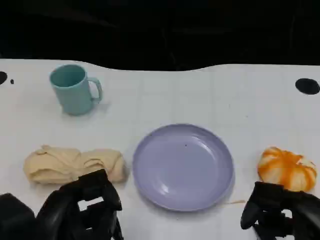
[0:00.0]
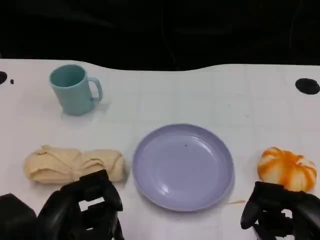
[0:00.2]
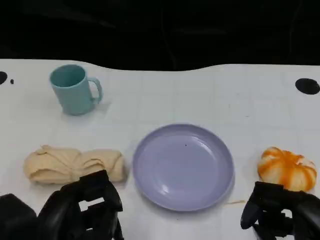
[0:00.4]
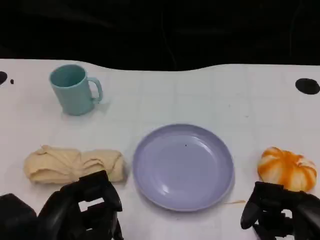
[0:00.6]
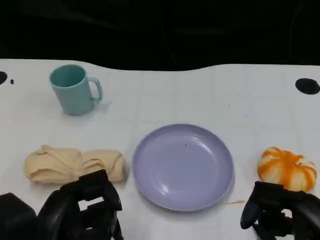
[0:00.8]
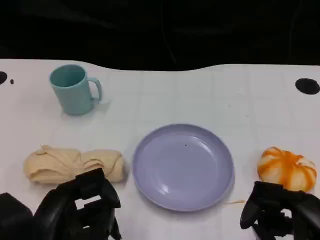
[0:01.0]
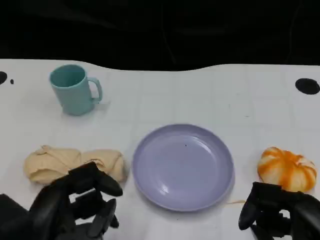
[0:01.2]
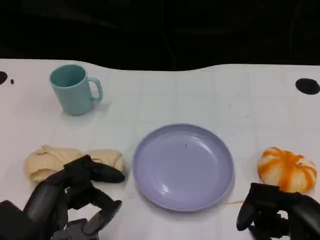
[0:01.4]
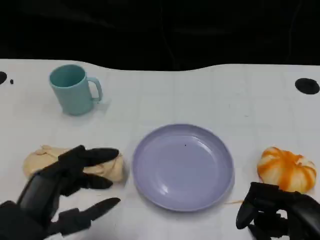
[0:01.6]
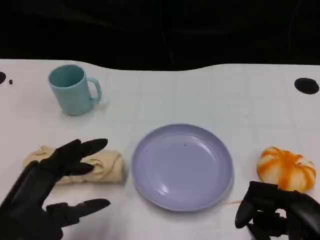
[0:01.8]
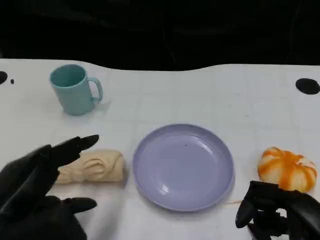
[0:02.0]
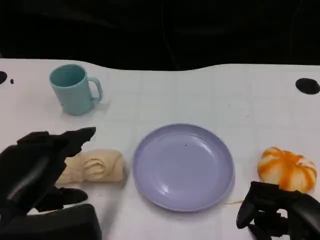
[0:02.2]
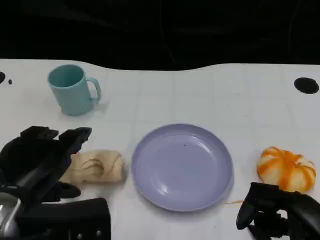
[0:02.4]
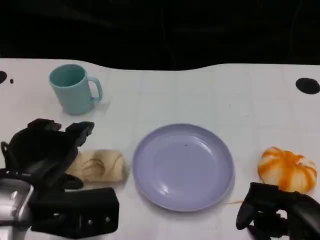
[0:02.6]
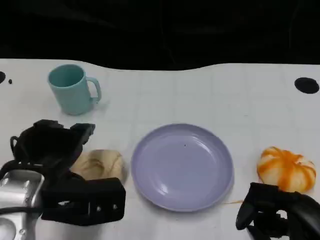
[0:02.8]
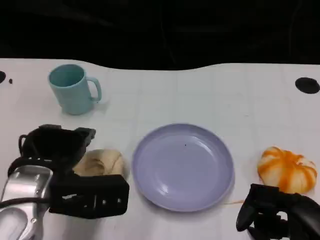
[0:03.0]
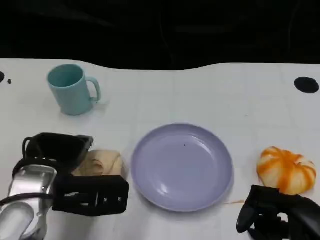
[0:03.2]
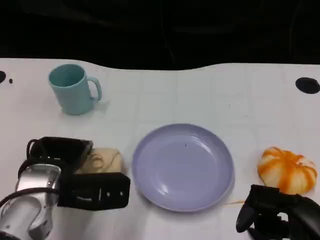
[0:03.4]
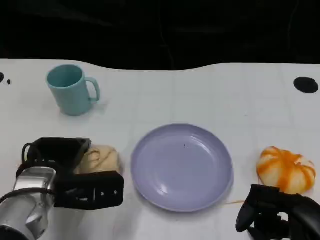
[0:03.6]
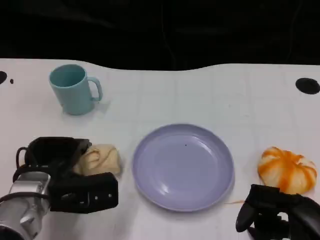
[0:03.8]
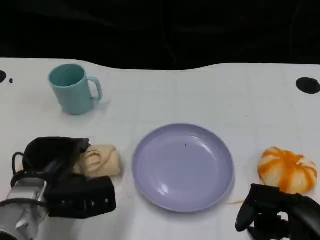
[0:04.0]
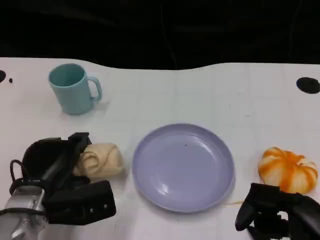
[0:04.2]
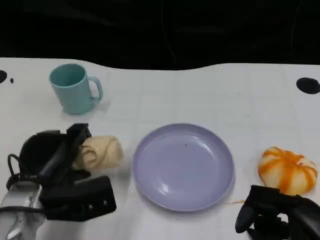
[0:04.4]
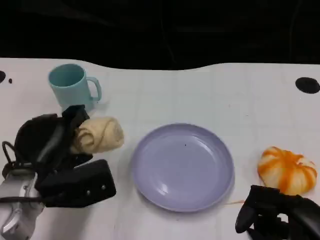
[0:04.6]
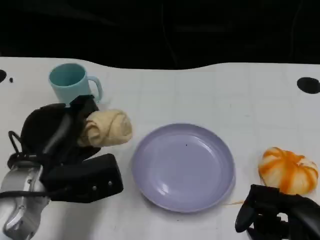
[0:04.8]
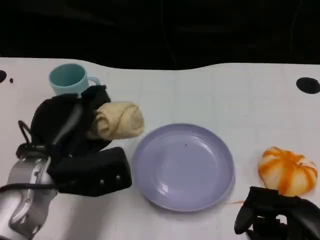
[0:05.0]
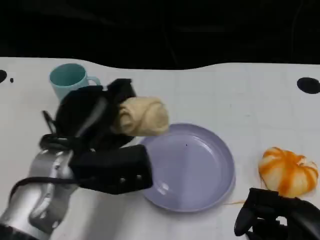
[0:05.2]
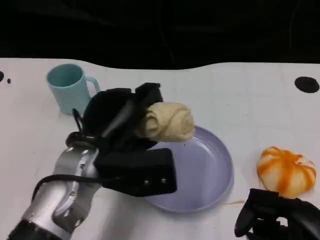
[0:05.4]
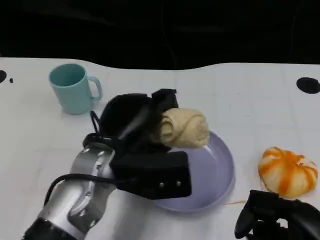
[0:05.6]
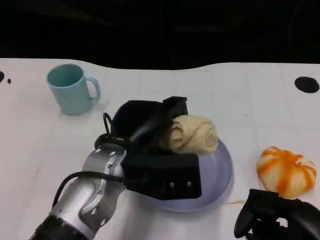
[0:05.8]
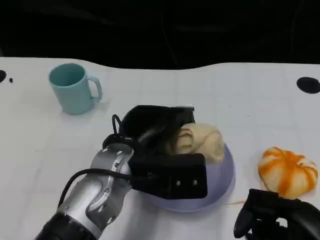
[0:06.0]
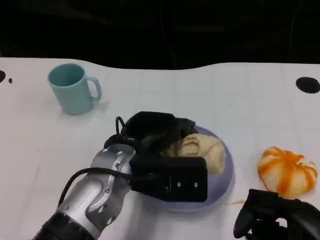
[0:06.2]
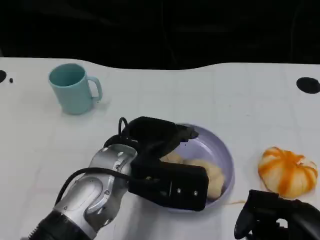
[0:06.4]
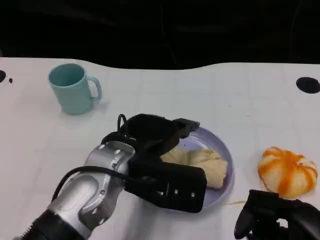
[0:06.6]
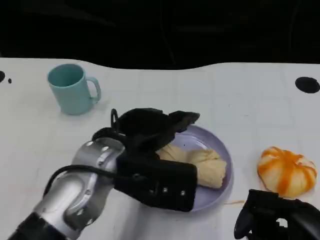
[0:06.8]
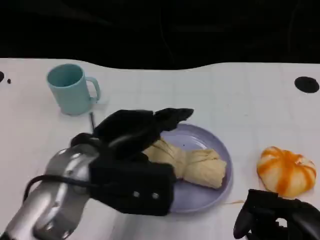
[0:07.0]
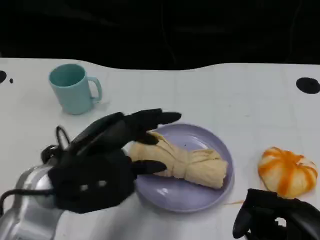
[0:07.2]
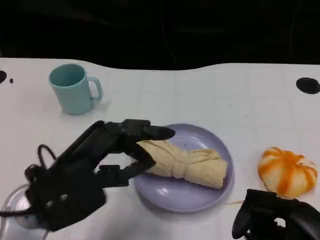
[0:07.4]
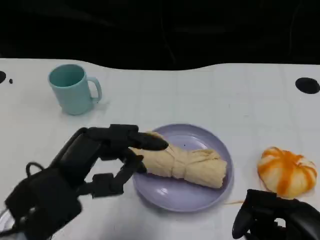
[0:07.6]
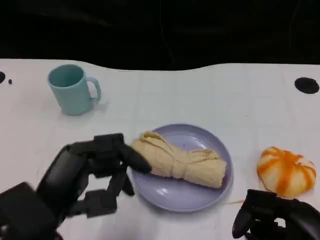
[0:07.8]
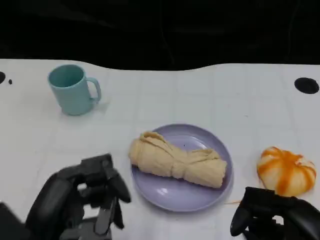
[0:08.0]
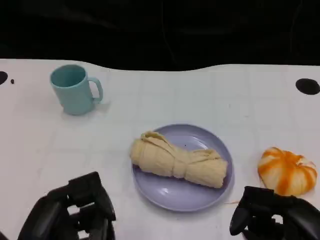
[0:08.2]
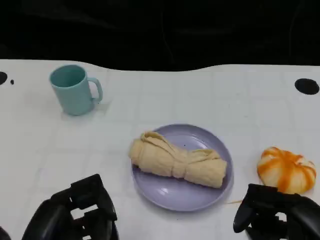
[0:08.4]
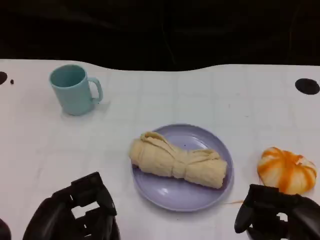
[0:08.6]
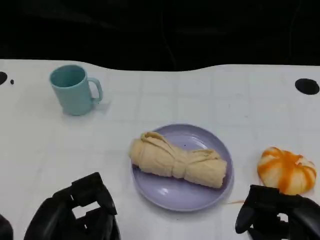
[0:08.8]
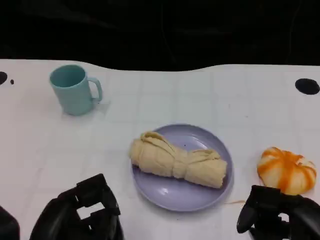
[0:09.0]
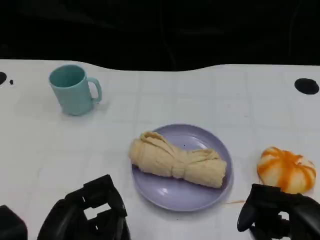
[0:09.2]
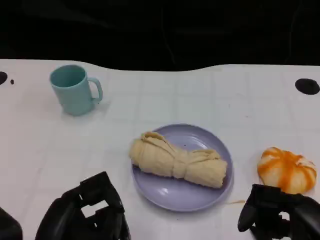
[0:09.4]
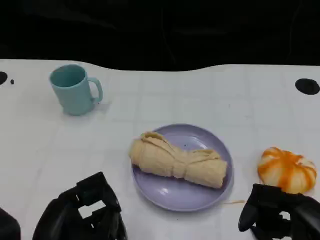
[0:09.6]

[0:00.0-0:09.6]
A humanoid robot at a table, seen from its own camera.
Task of the whole recording: Grasp the towel on the left side of the plate with the left hand and place it into the plate.
0:01.6 to 0:03.2: The left hand moves forward, approximately 10 cm.
0:04.8 to 0:06.4: The left hand goes approximately 10 cm to the right.
0:06.4 to 0:08.0: The left hand moves backward and to the left, about 20 cm.
0:08.0 to 0:09.6: There are only small adjustments of the hands.

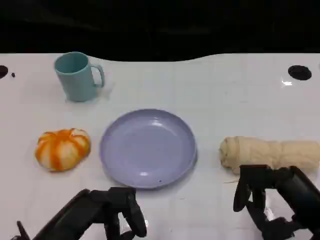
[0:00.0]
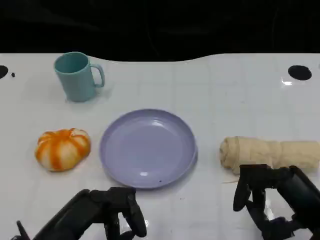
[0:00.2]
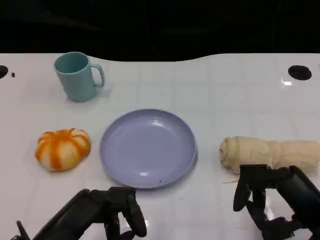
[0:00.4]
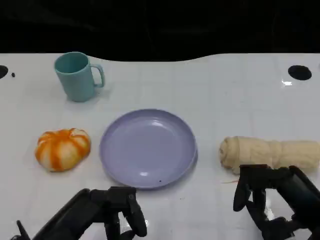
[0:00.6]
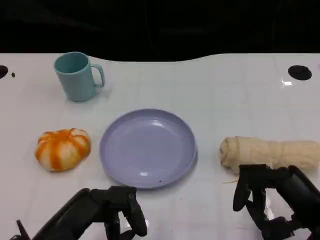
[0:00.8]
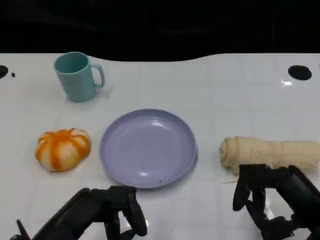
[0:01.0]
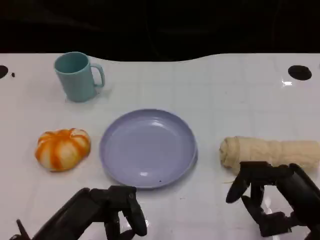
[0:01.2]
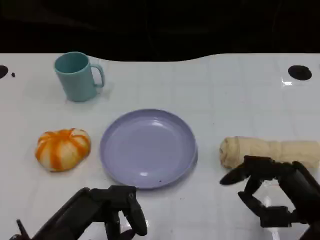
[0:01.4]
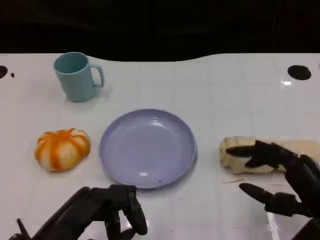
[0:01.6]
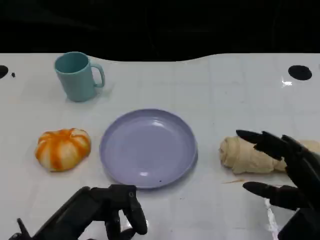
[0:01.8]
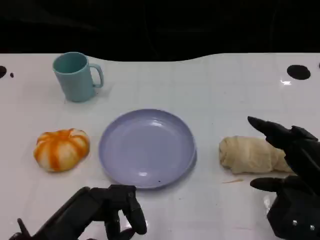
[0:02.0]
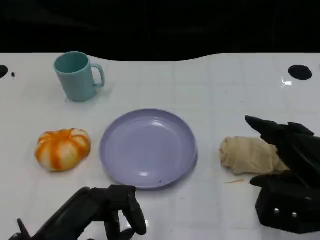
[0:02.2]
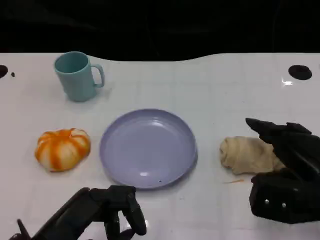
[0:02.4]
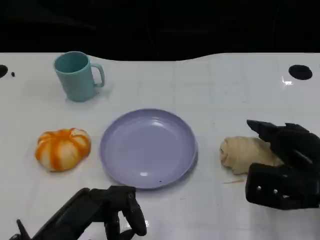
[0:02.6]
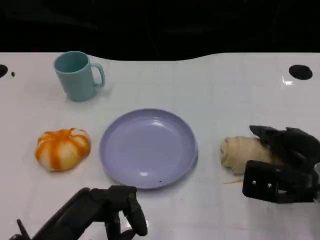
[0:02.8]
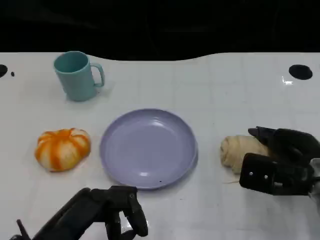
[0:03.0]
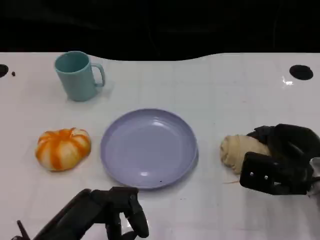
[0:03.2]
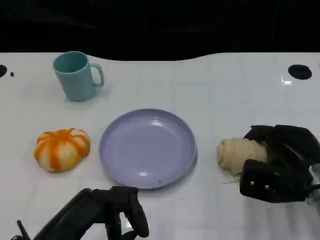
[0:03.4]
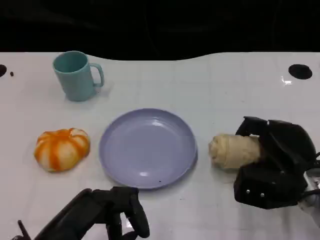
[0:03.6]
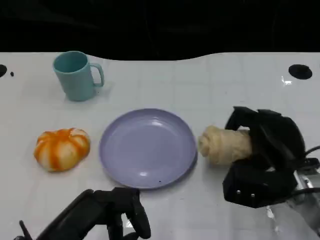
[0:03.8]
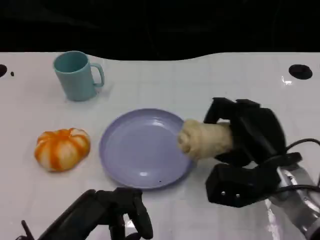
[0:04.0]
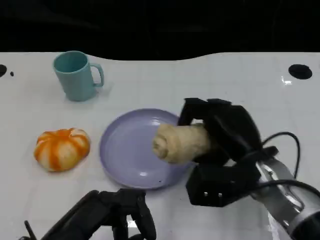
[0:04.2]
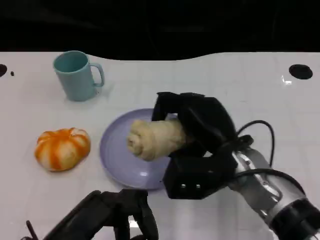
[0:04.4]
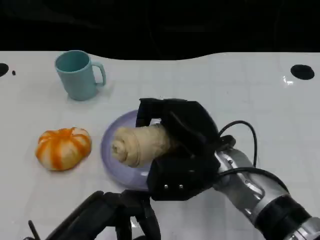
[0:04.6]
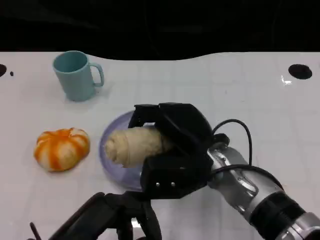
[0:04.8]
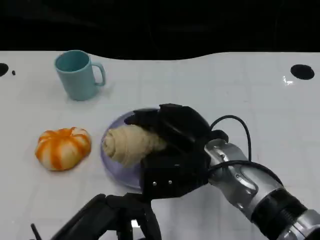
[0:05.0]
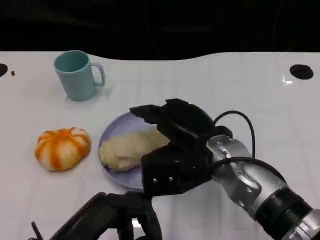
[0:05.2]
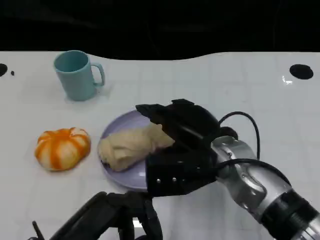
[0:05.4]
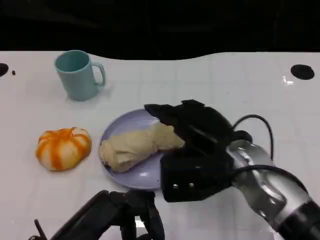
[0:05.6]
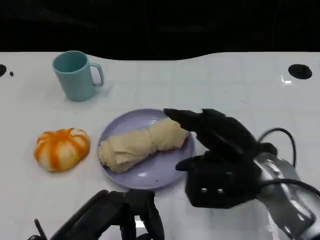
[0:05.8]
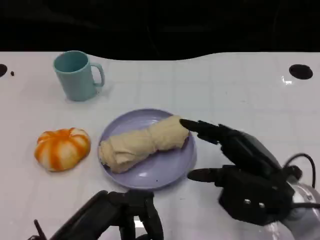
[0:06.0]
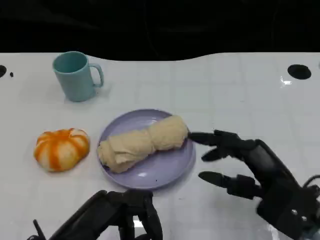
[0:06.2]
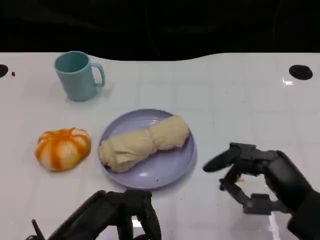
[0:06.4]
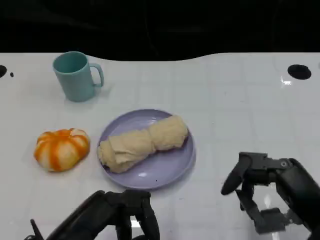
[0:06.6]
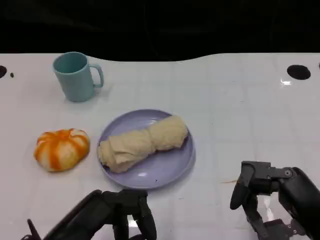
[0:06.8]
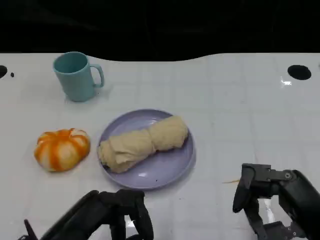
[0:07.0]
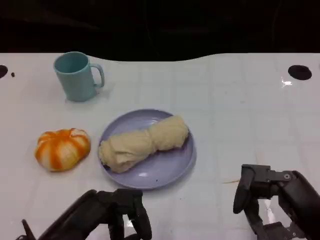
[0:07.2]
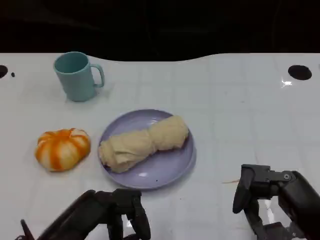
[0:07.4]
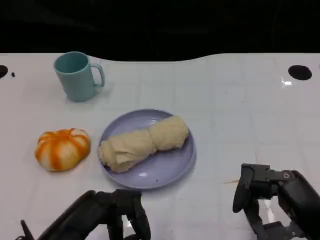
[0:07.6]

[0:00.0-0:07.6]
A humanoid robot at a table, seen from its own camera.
Task of the whole recording: Grasp the towel on the left side of the plate with the left hand and place it into the plate.
0:00.0 to 0:01.6: There are only small adjustments of the hands.
0:01.6 to 0:03.0: The right hand goes about 10 cm forward.
0:03.0 to 0:04.6: The right hand is displaced to the left by about 15 cm.
0:04.6 to 0:06.0: The right hand moves to the right, roughly 10 cm.
0:06.0 to 0:07.6: The right hand goes about 10 cm backward and to the right.
